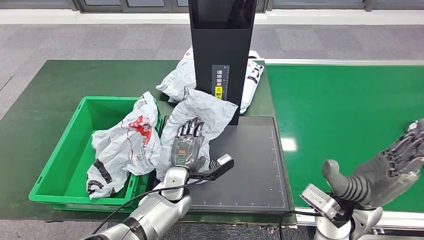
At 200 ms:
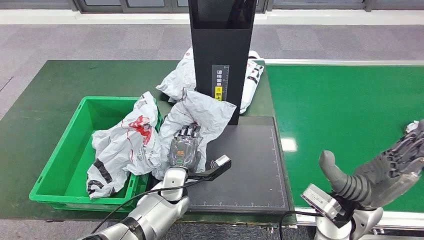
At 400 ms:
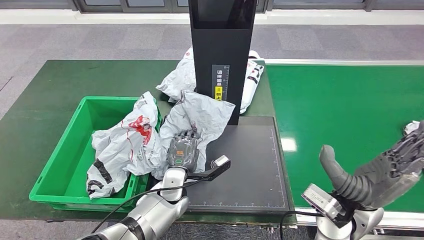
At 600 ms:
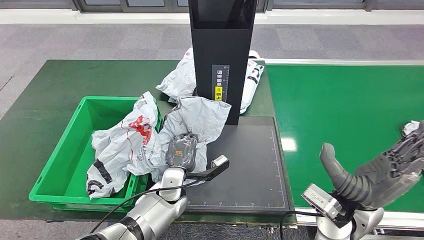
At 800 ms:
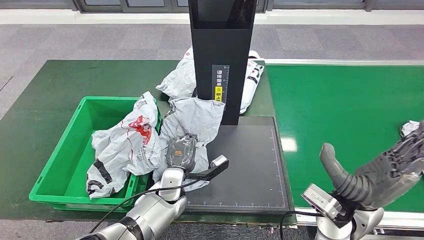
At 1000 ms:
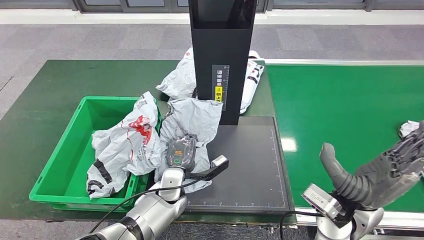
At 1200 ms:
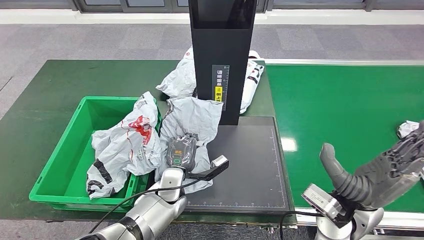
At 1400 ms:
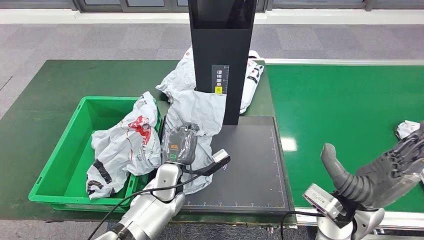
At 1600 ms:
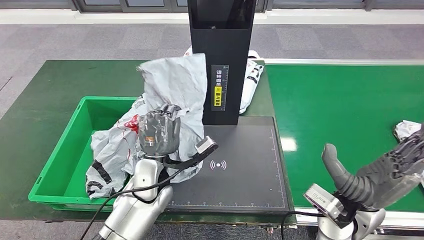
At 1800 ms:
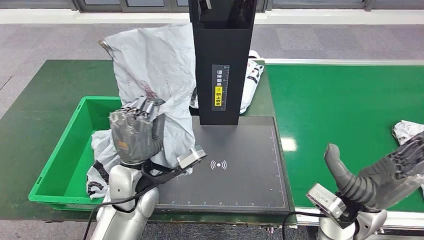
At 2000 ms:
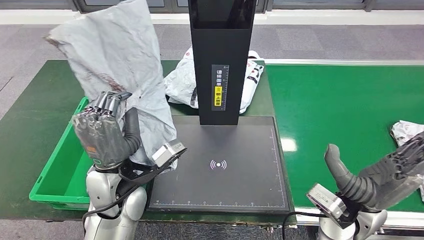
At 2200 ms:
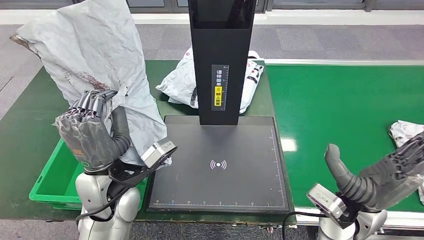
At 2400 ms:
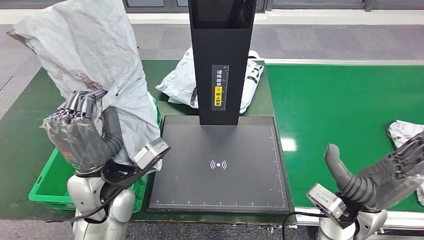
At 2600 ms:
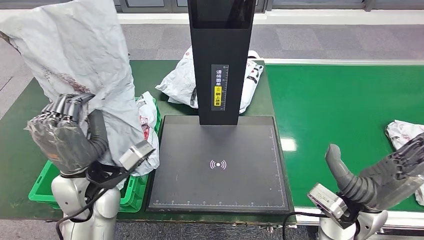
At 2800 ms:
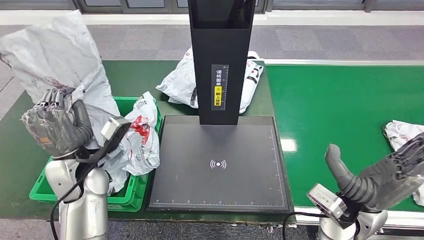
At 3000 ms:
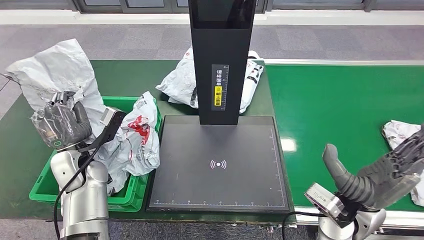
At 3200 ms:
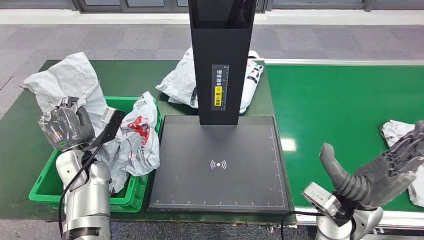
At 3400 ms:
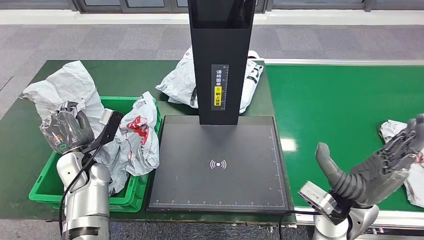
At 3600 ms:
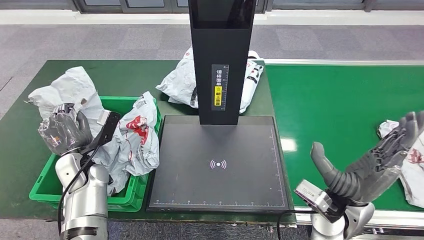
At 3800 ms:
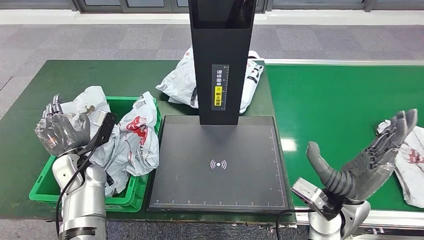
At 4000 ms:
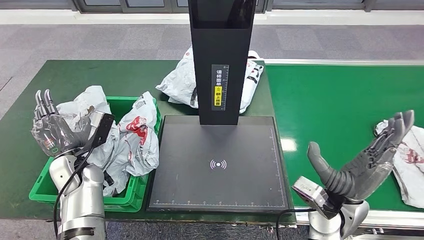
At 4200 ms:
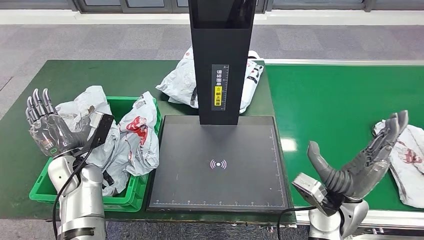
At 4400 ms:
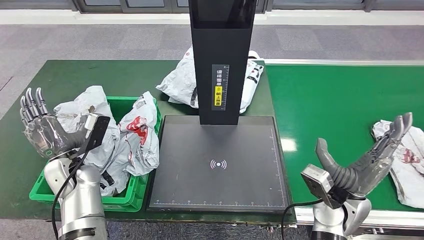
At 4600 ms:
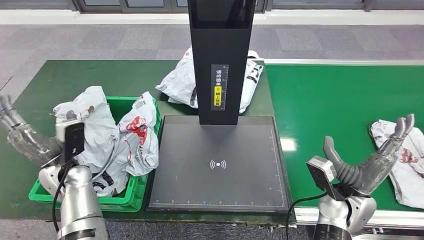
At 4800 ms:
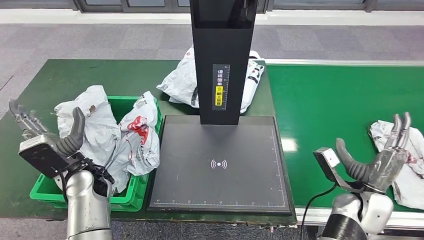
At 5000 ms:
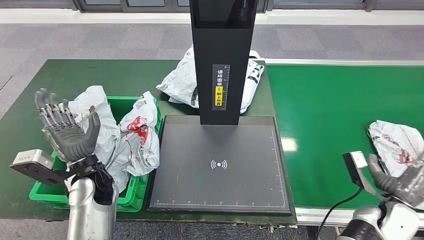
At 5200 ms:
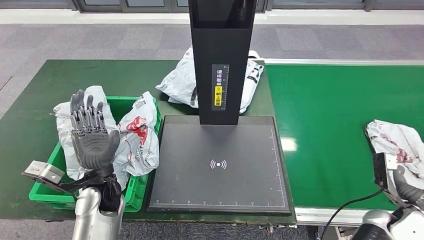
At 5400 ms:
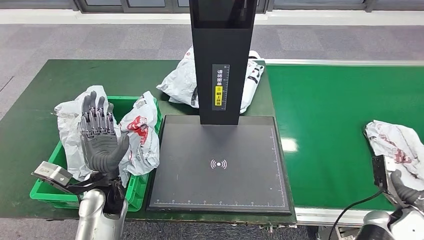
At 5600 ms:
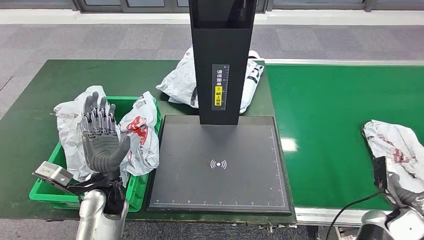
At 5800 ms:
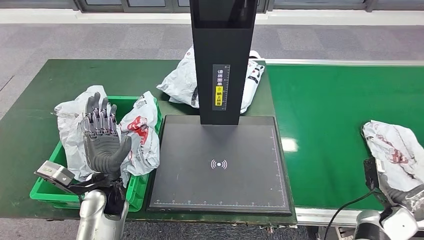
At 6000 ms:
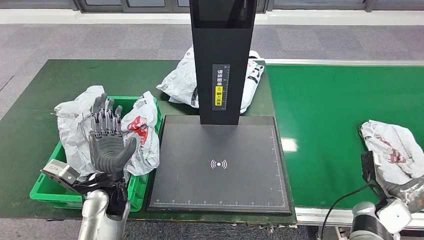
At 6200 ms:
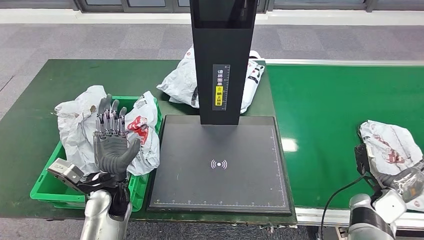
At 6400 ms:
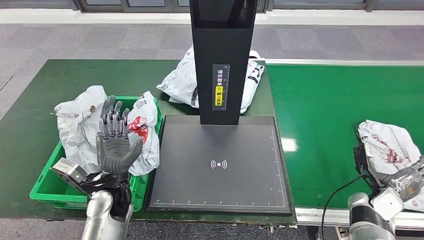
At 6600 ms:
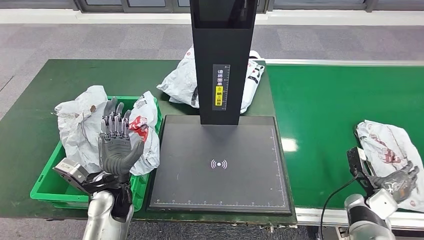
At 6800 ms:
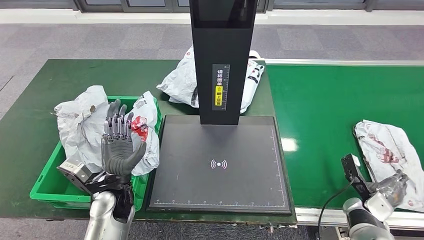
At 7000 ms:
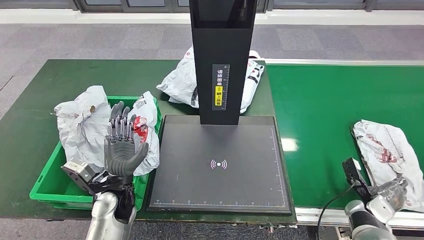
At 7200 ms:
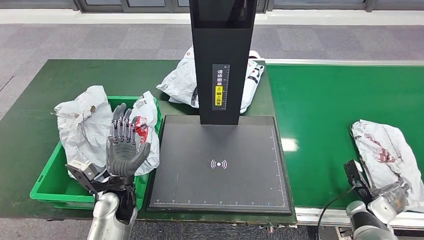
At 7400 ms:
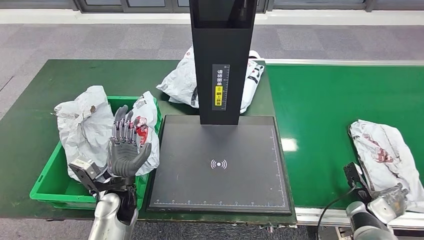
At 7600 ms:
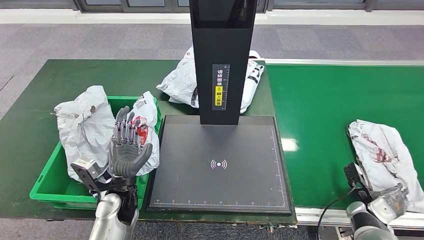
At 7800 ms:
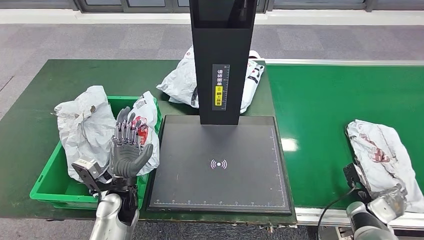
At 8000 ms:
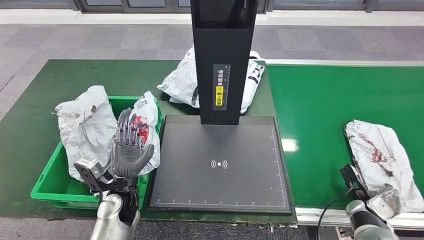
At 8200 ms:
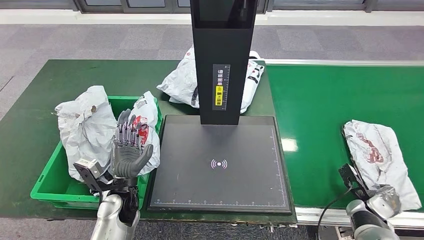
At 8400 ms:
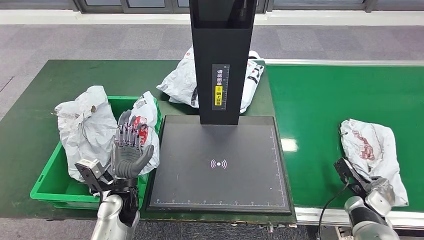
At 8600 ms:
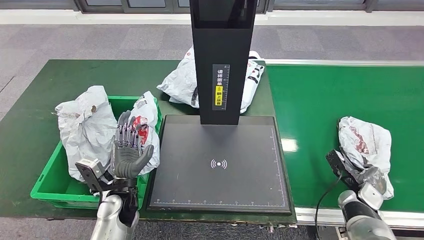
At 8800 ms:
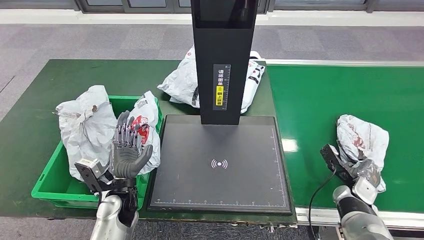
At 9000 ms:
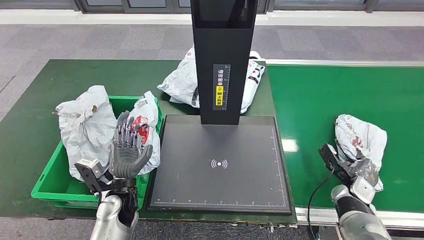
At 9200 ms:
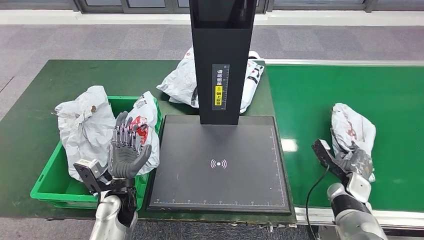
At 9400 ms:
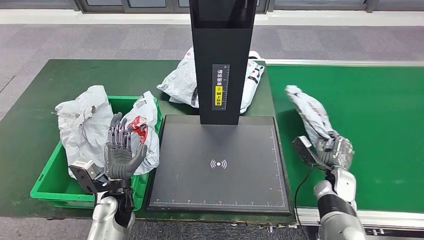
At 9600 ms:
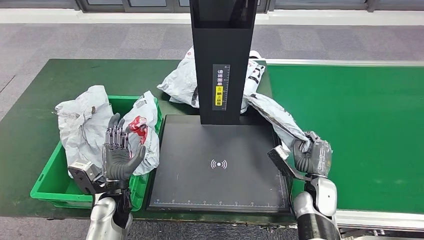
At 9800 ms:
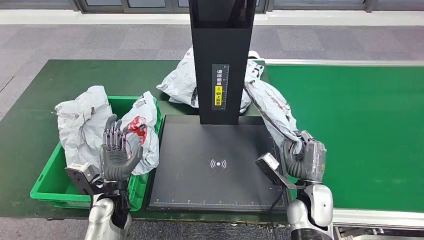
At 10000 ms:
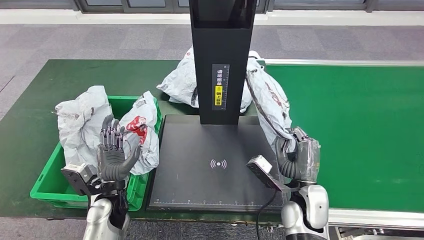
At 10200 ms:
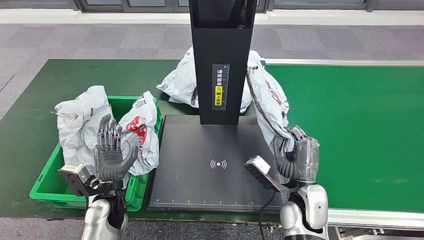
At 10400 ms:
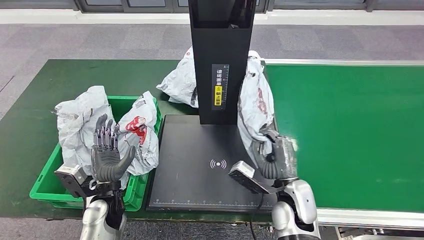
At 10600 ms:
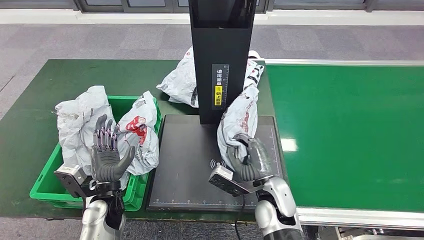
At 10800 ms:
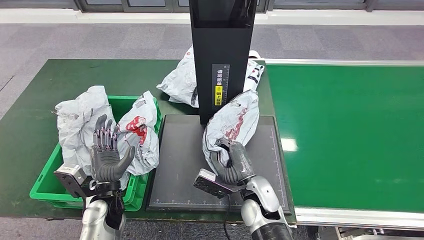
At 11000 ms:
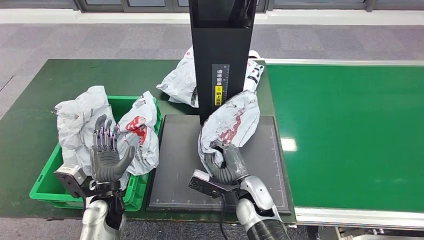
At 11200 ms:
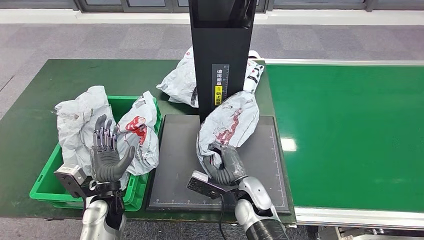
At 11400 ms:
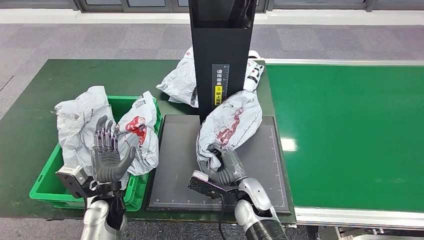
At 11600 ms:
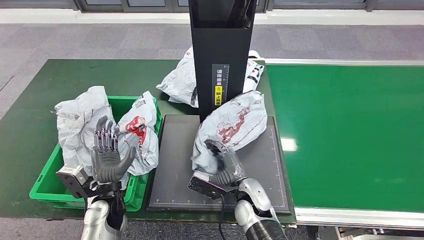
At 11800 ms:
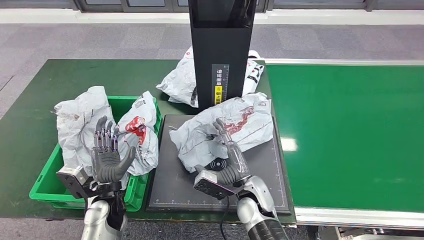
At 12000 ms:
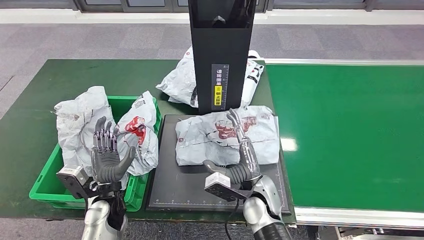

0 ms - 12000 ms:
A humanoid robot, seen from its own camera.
Step, 0 ms - 1800 ms: Pick up the parcel from the inbound machine.
Step, 2000 ms - 4600 ms: Place the parcel into the delivery box.
Step, 4800 ms - 10000 ms: Pick up the parcel from the conveyor belt.
0 ms - 1600 ms: The left hand heads upward, covering roughly 10 cm.
3000 ms - 4400 ms: The right hand moves about 5 cm.
4400 ms - 6000 ms: The right hand moves to the right and downward, approximately 20 cm; the left hand moves to the right, some 10 cm.
7600 ms - 9000 ms: The right hand ends up about 5 cm from where it was.
10400 ms - 12000 ms: The right hand is displaced to the left by about 5 cm.

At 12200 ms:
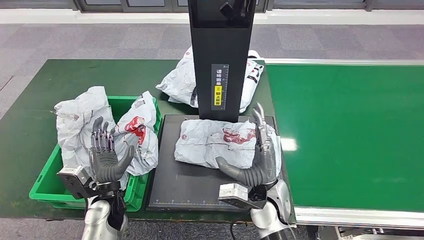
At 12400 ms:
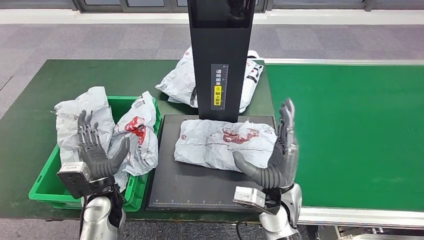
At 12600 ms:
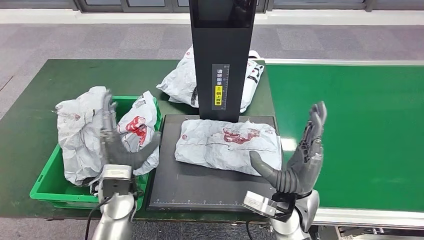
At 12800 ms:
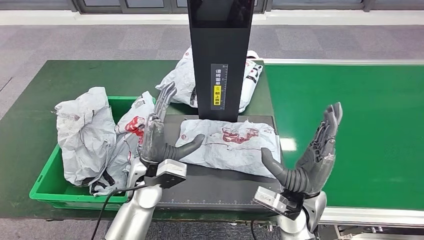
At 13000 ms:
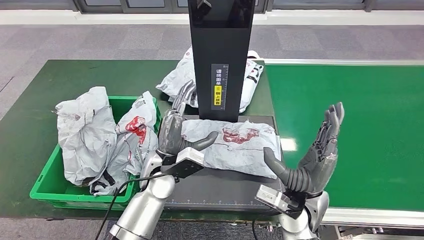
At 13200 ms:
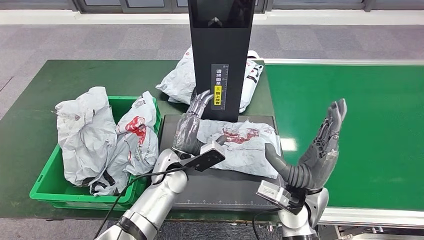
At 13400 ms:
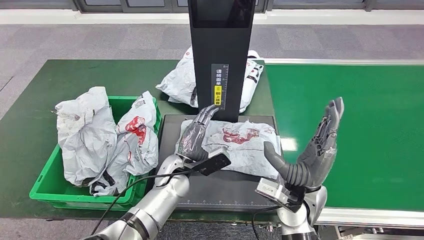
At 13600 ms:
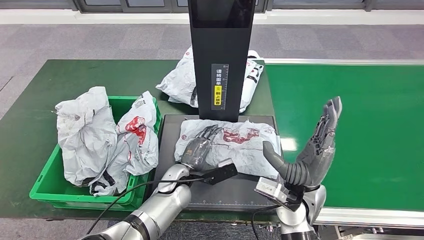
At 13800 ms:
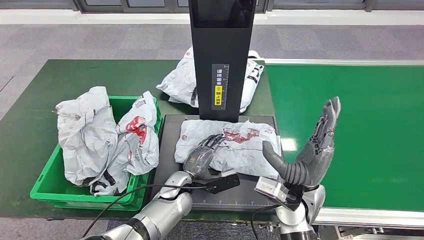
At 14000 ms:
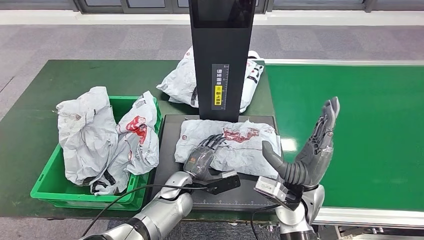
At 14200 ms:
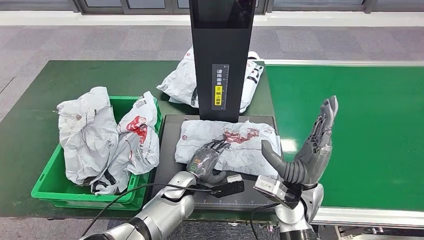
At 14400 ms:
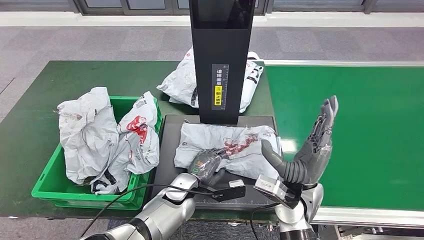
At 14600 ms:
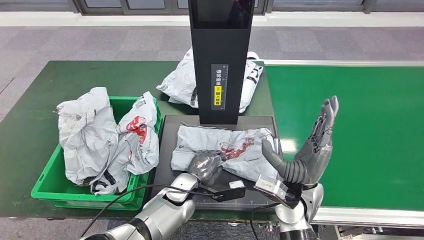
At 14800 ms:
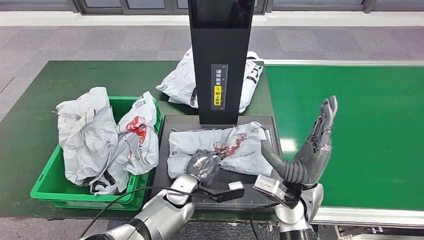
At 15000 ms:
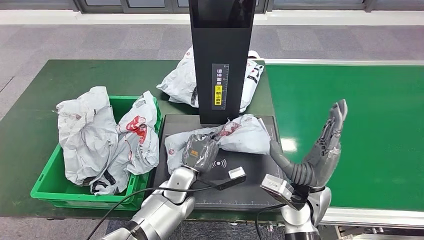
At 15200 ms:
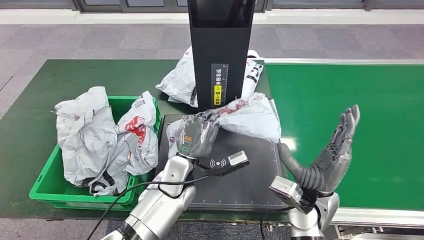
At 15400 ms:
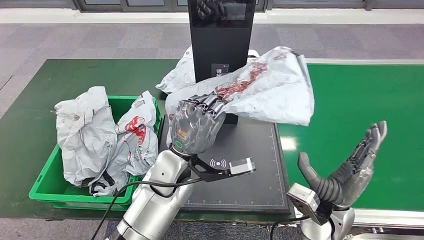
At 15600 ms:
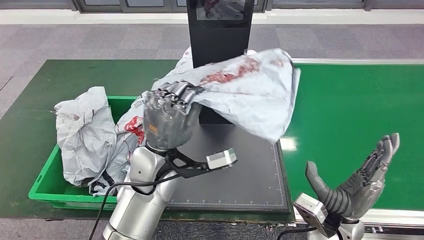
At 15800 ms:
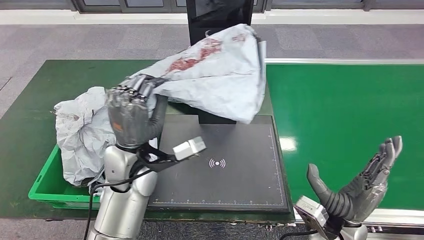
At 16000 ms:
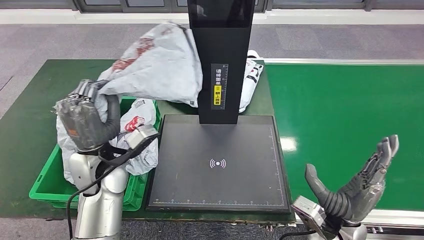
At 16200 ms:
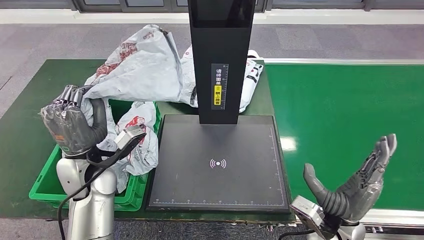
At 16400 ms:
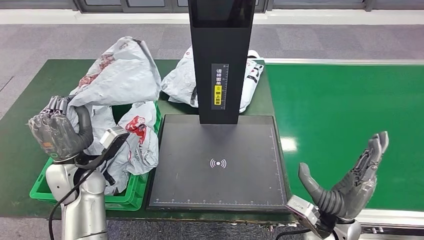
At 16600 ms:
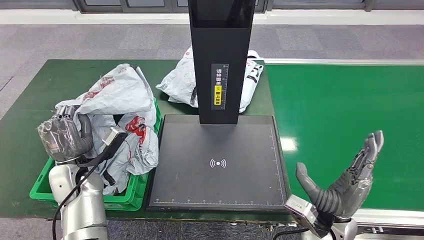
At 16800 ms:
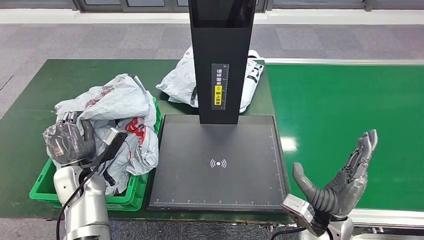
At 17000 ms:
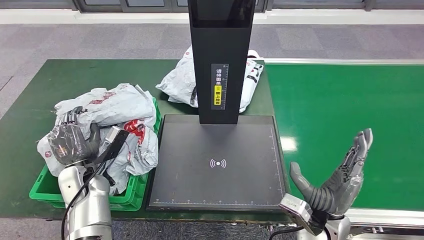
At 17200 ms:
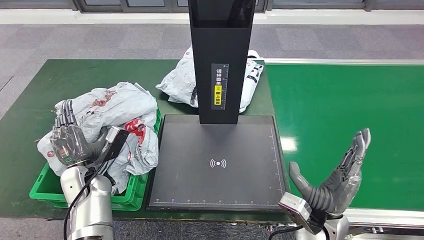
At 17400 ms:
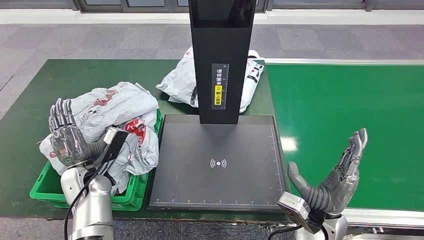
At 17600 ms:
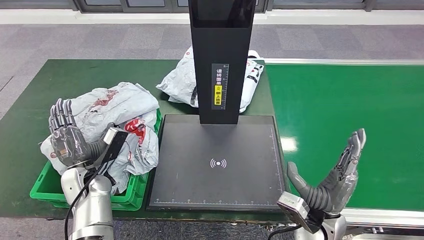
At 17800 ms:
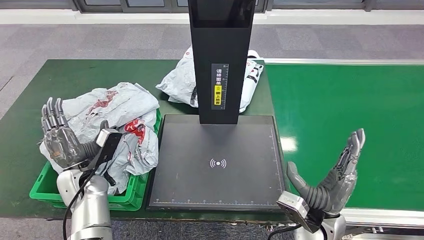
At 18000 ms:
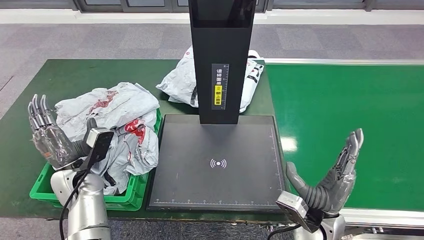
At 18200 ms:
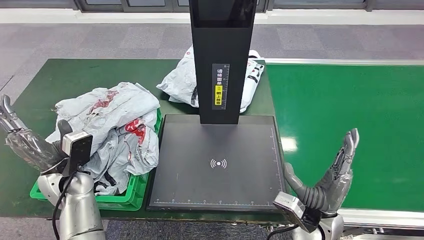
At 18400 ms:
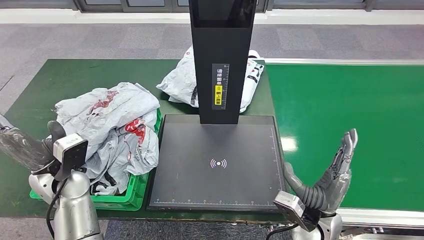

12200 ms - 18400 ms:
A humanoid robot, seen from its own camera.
Step, 12600 ms - 15600 ms: Pick up the parcel from the inbound machine.
Step, 16000 ms - 18400 ms: Place the parcel into the delivery box.
12200 ms - 13800 ms: The left hand travels to the right by about 15 cm, while the right hand shifts approximately 5 cm to the right.
16800 ms - 18400 ms: The left hand is displaced upward by roughly 5 cm.
